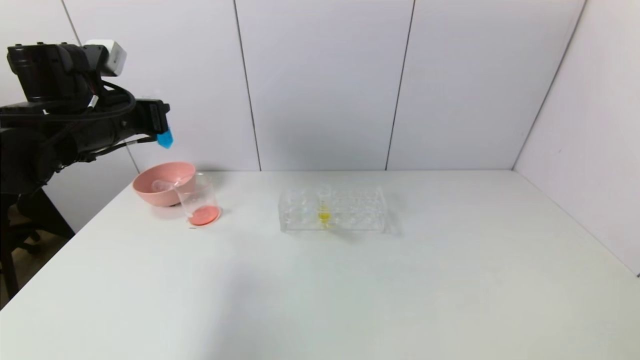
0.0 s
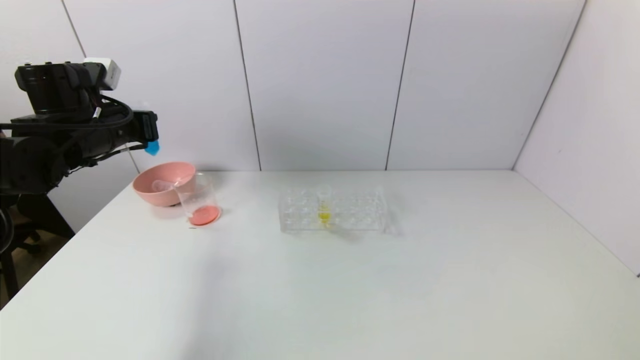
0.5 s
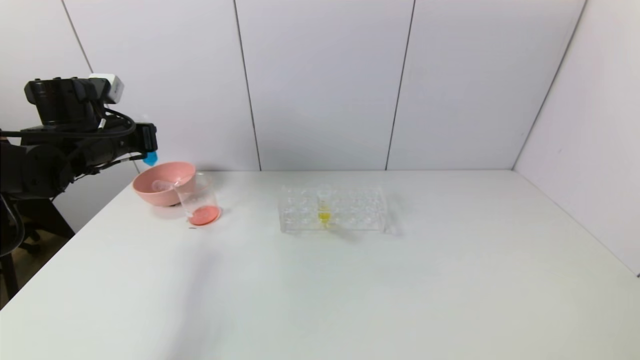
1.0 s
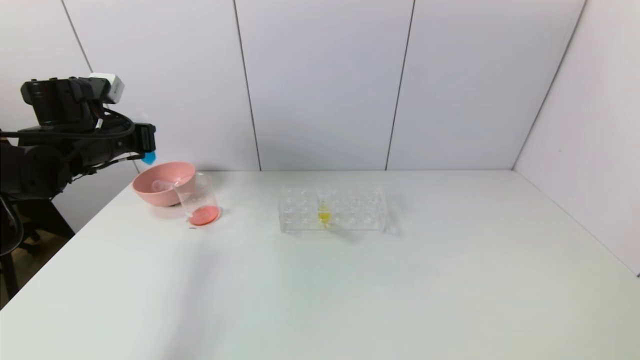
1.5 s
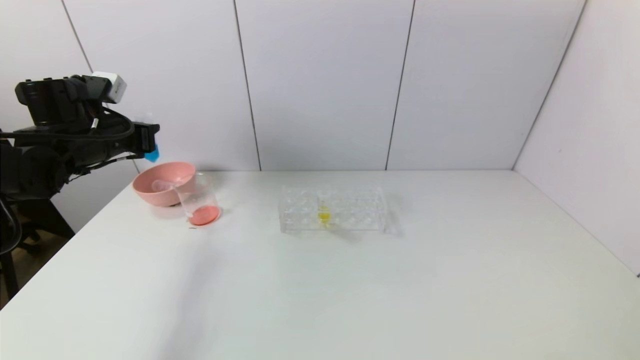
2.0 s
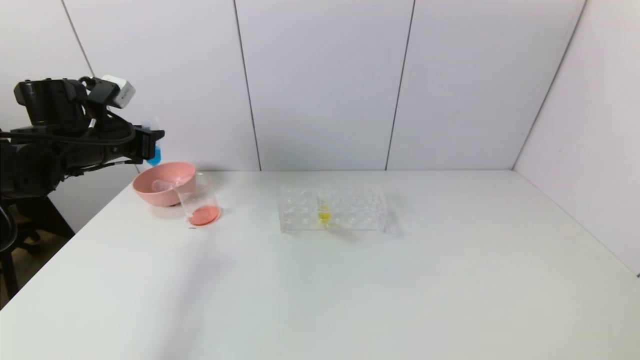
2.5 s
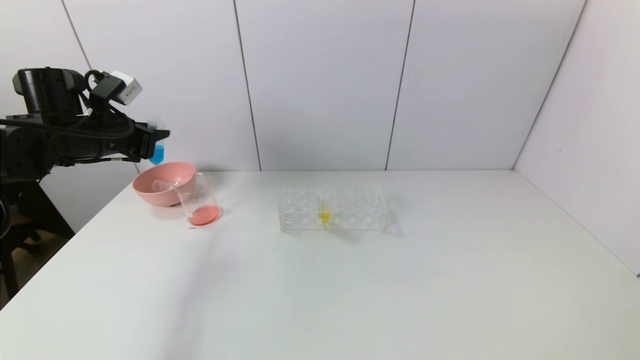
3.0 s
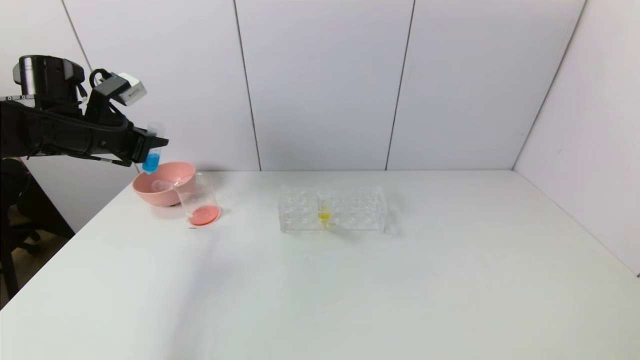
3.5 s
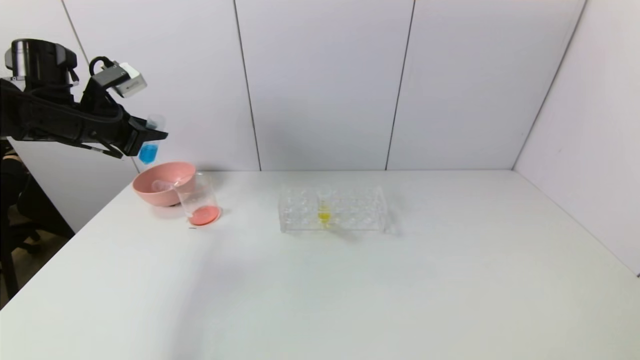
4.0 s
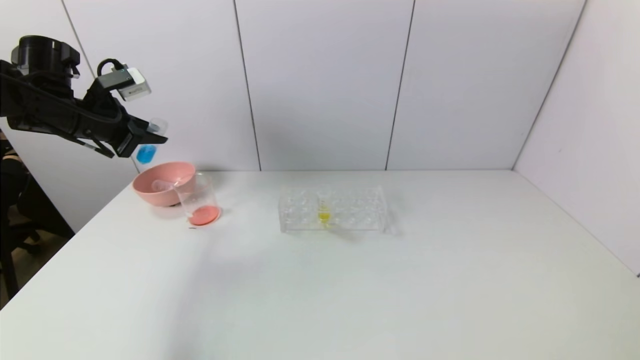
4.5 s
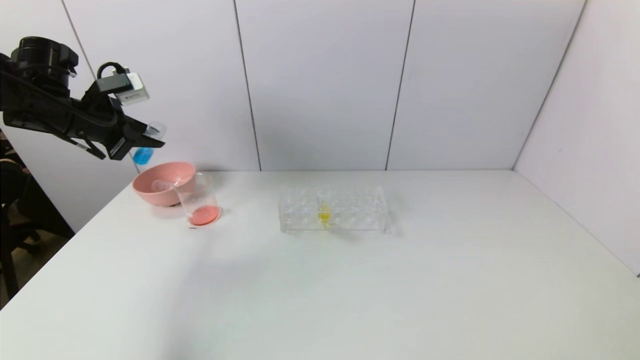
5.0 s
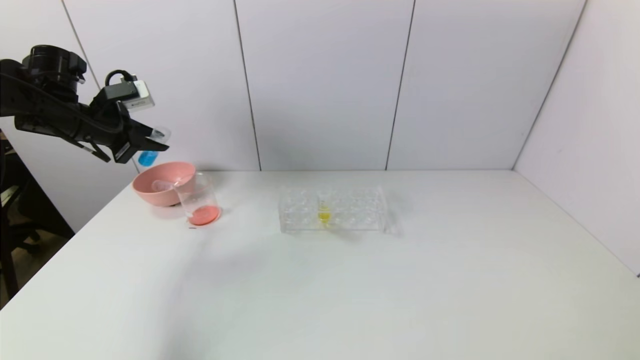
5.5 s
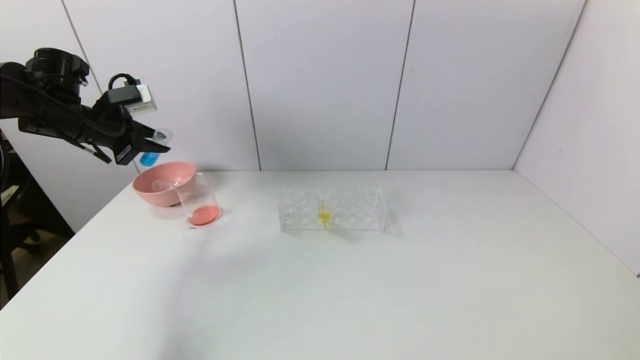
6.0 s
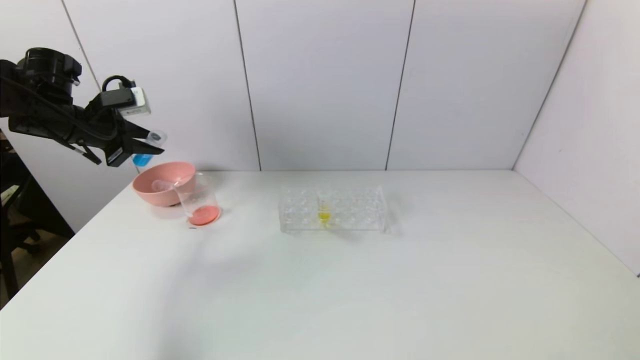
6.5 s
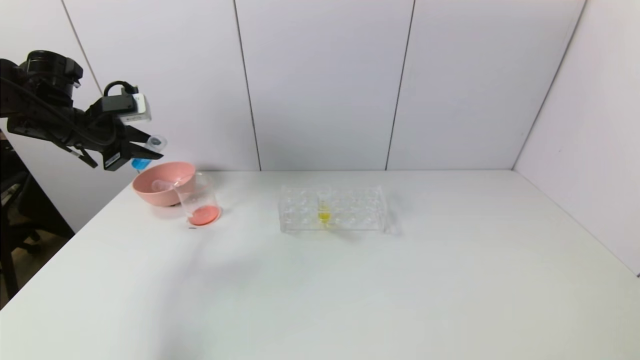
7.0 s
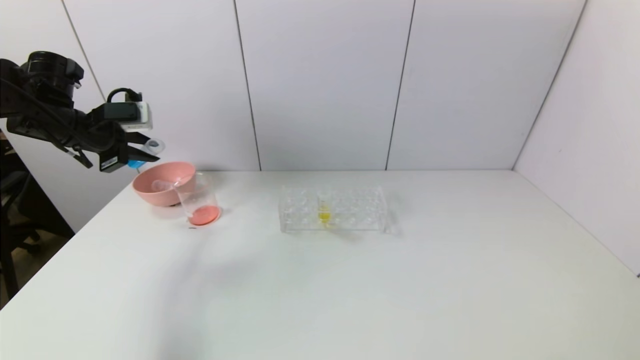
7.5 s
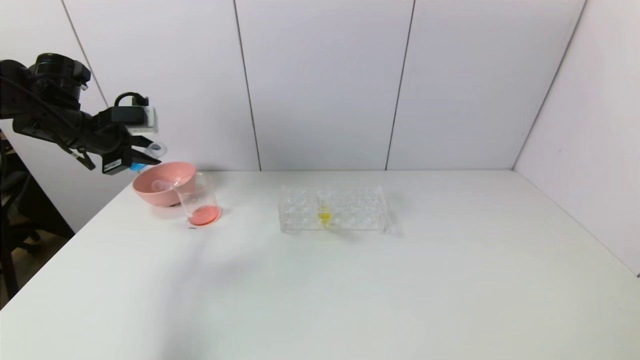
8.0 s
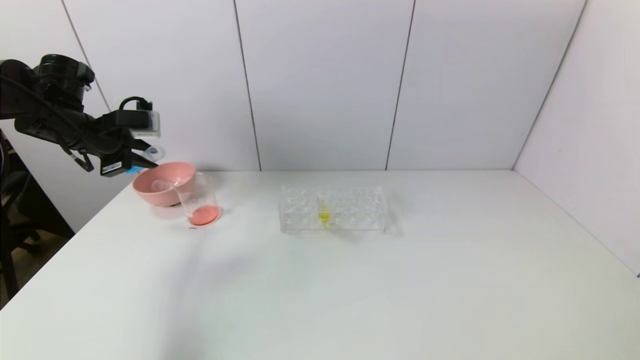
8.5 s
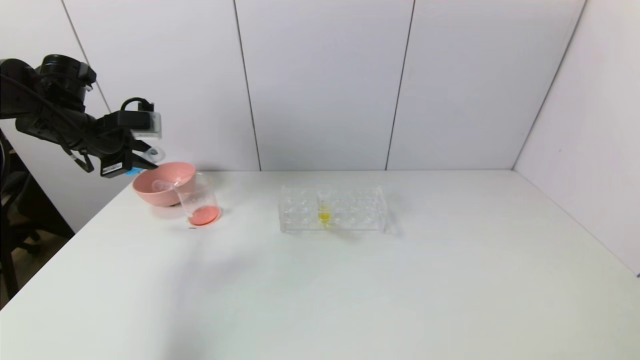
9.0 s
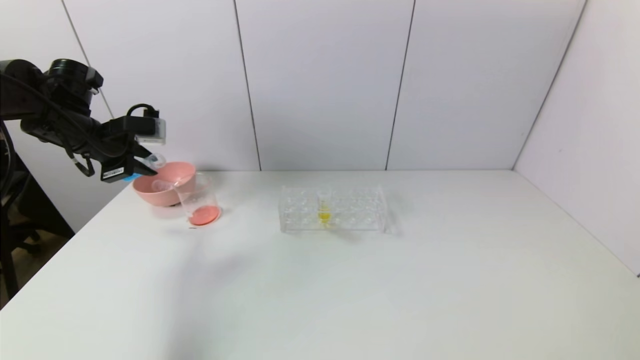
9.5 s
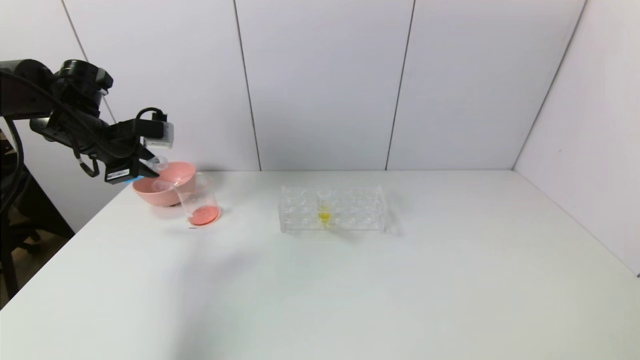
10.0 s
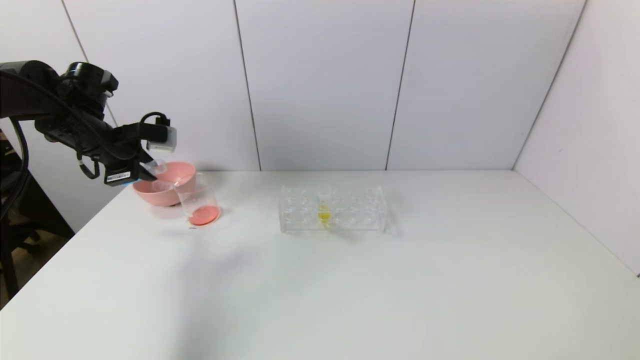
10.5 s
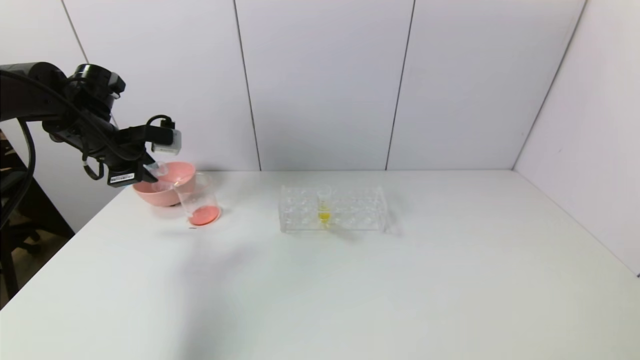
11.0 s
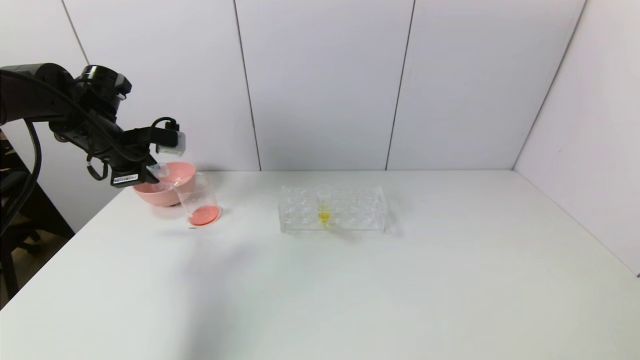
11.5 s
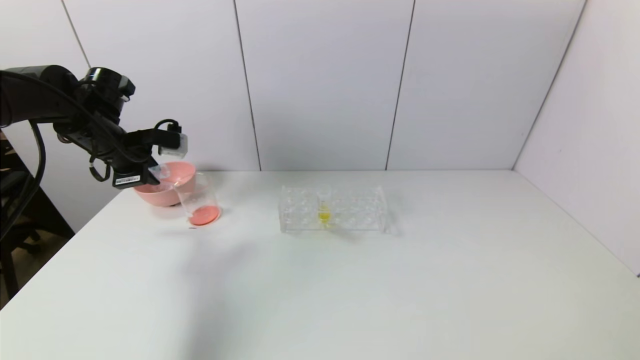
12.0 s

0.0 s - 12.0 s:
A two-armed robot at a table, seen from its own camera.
Task of the whole recording: pick up the test tube with red pigment and the test tube with blue pigment by grippers and pour them into the container.
0.0 s - 2.0 s: The left gripper shifts roughly 5 cm to the left.
6.0 s - 8.0 s: The grippers move only a little.
8.0 s - 10.0 s: There are only small adjustments of the grippers.
10.0 s - 12.0 s: The grippers make only small movements.

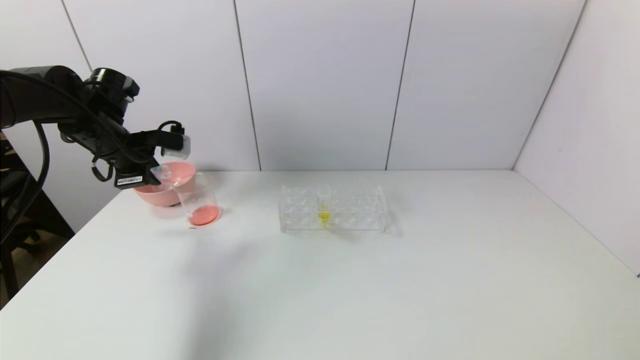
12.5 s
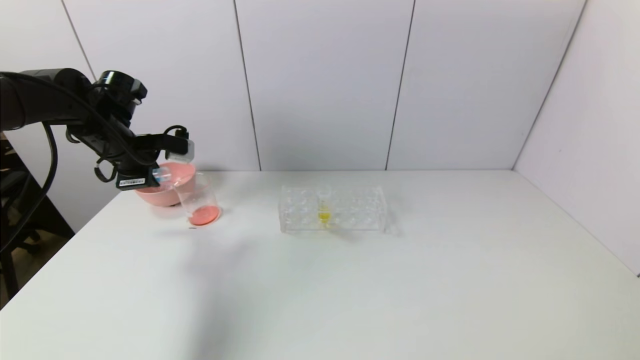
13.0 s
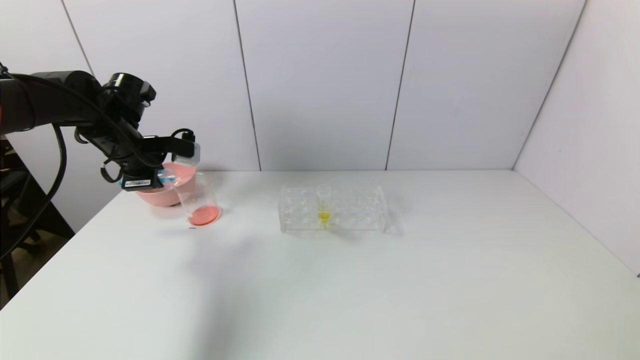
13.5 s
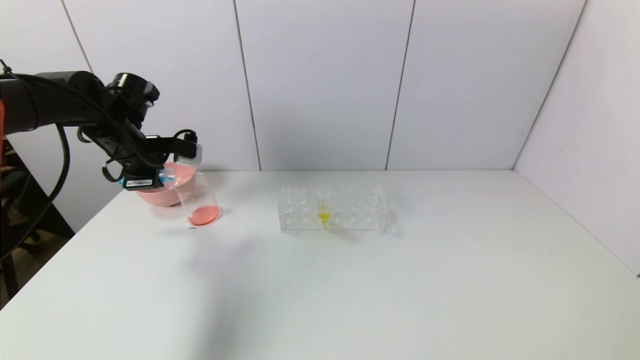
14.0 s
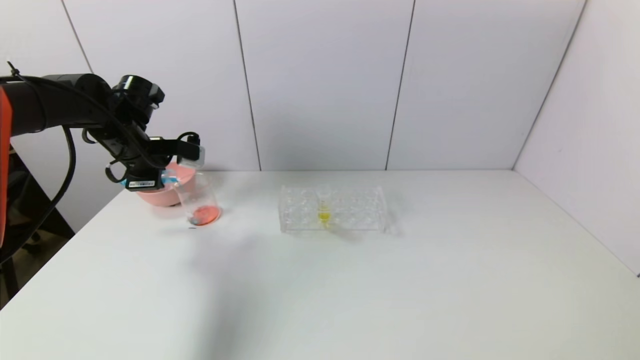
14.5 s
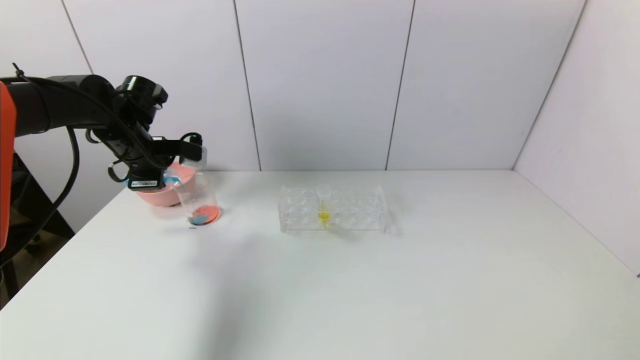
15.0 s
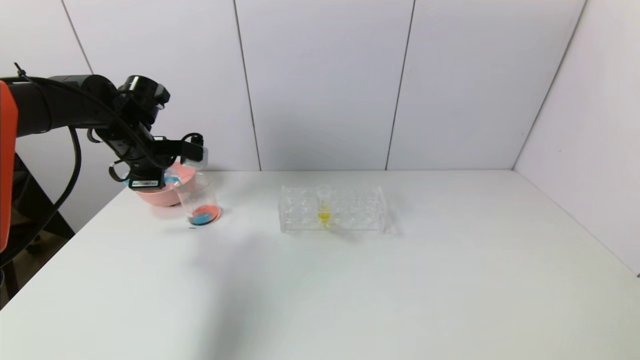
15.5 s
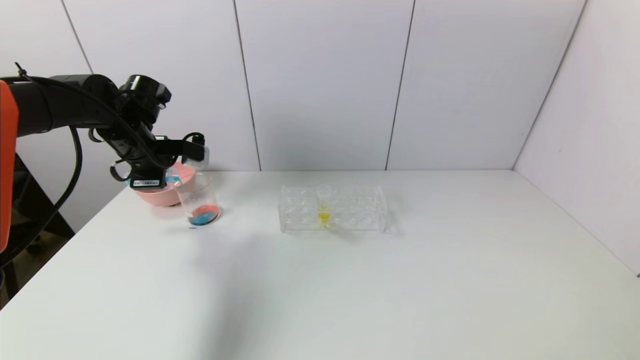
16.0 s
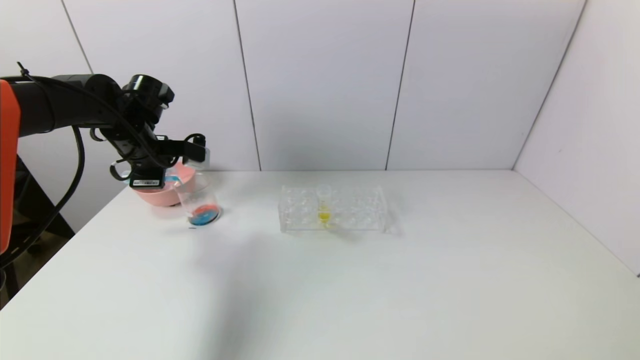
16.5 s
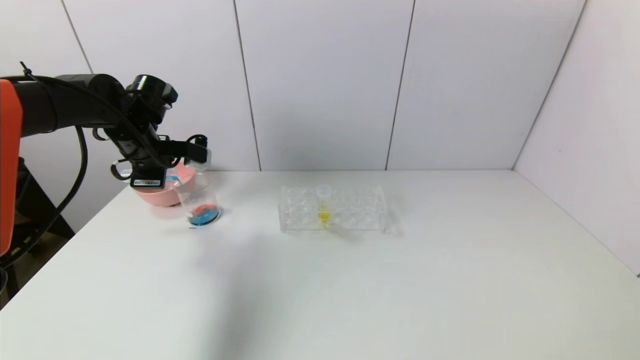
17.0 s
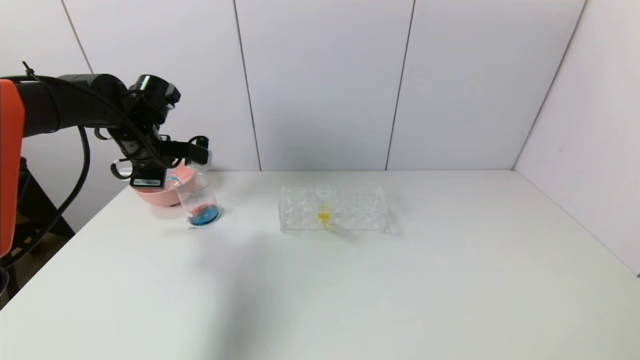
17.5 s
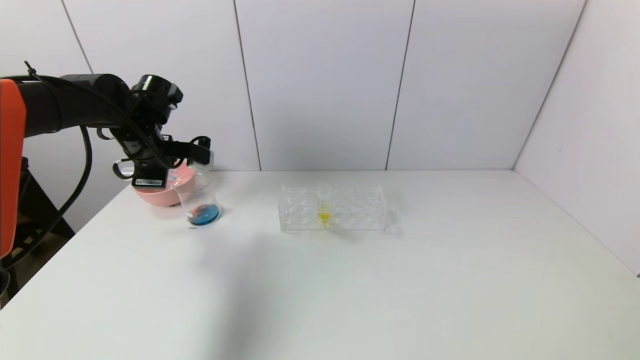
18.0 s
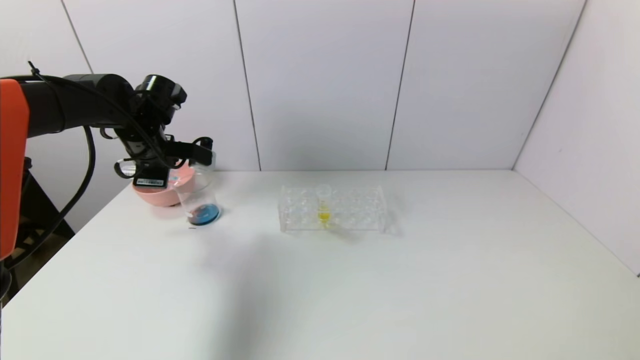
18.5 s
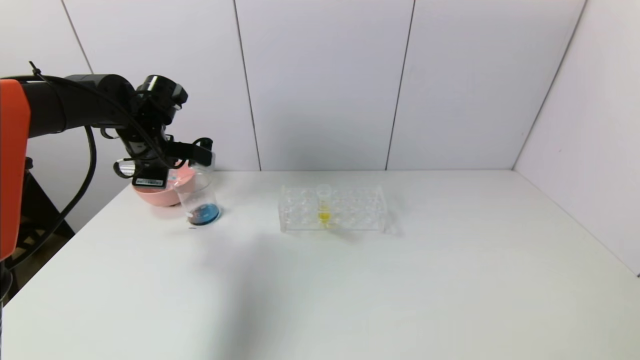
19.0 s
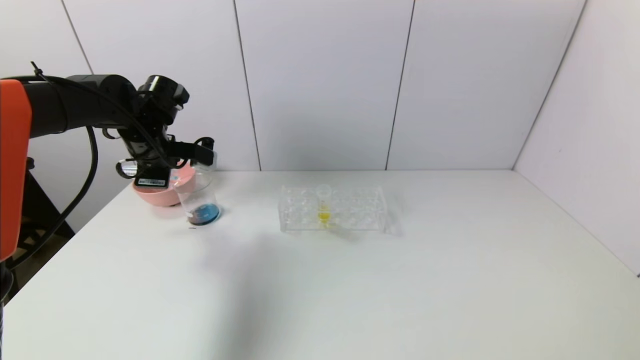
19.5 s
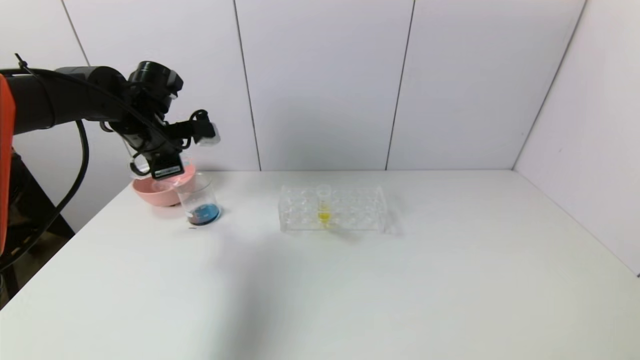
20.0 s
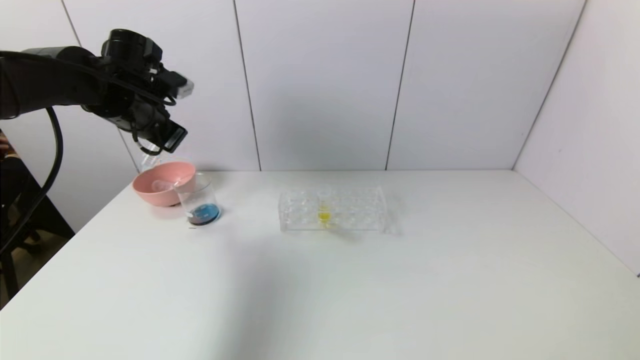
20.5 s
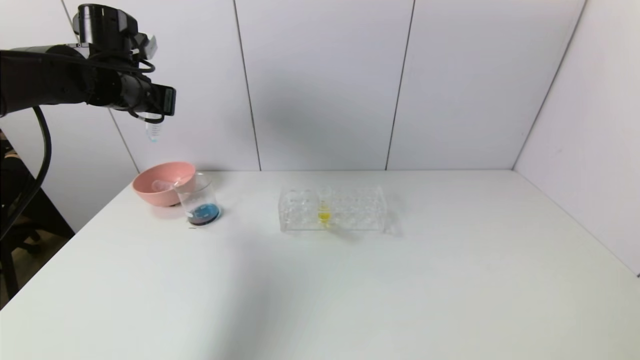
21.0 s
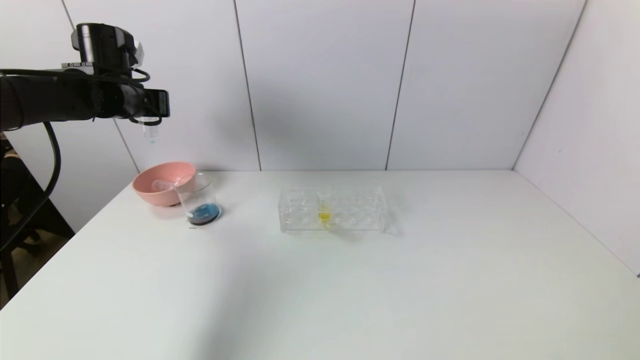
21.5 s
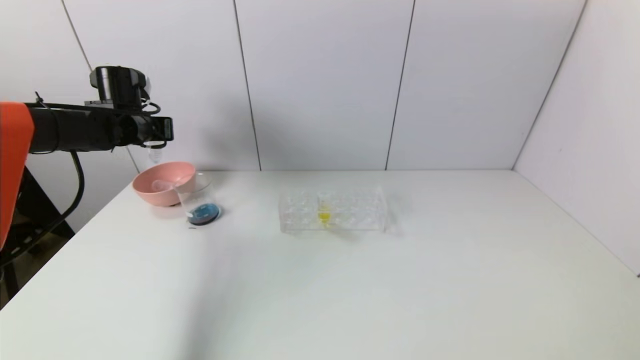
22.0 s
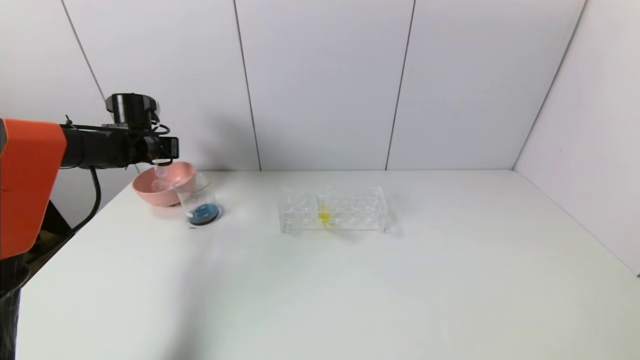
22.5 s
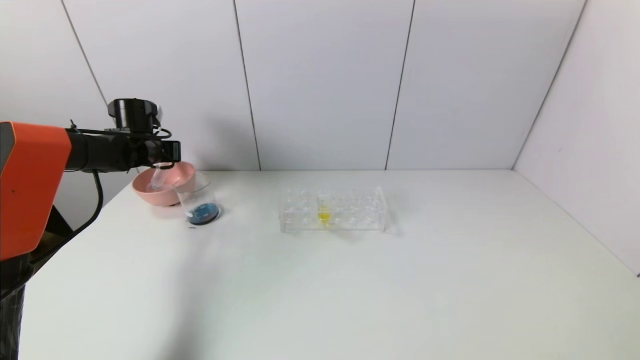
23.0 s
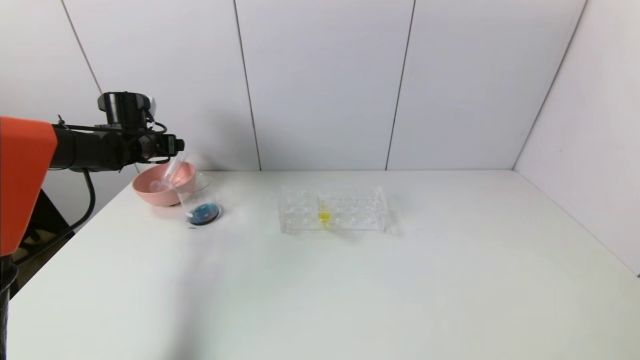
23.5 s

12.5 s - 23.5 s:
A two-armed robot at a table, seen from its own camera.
Task of the whole recording: pick up the test tube with red pigment and the test tube with blue pigment by grippers and pour them into the container.
Step, 12.5 s - 20.0 s: Pour the blue reagent into the graduated cylinder with the left gripper.
12.5 s - 14.5 s: The grippers make only small movements.
14.5 s - 16.0 s: Neither gripper changes place.
16.0 s - 18.0 s: There are only small adjustments of the grippers.
20.0 s - 21.5 s: The left gripper shifts by roughly 5 cm.
21.5 s - 23.5 s: The left gripper moves downward, some 10 cm, and opens up.
